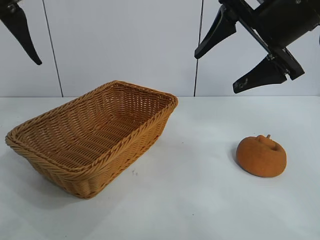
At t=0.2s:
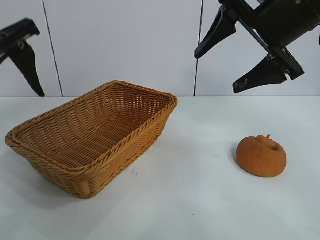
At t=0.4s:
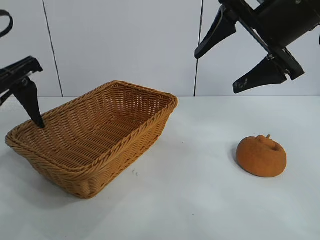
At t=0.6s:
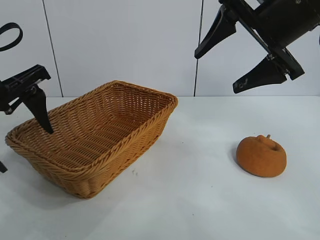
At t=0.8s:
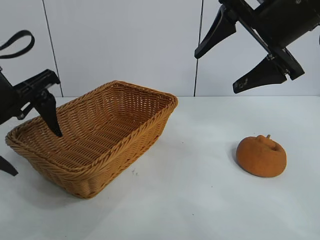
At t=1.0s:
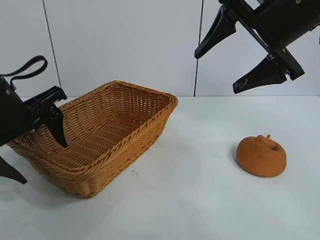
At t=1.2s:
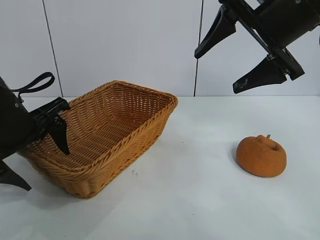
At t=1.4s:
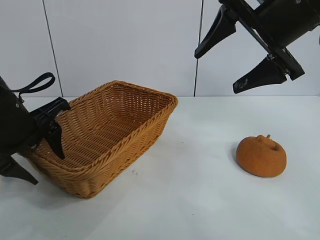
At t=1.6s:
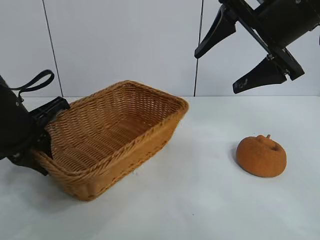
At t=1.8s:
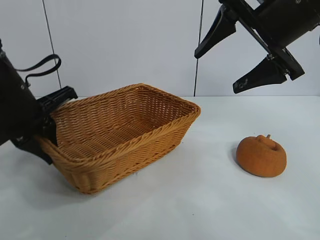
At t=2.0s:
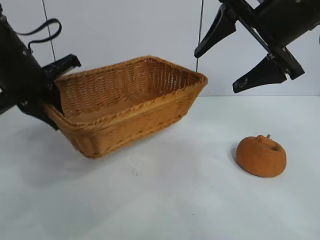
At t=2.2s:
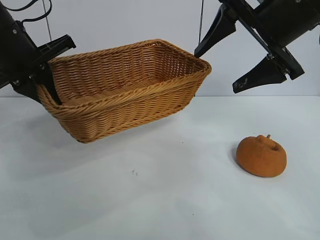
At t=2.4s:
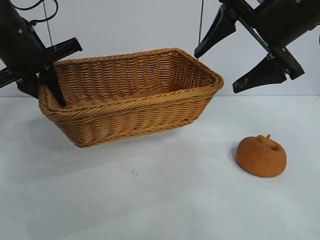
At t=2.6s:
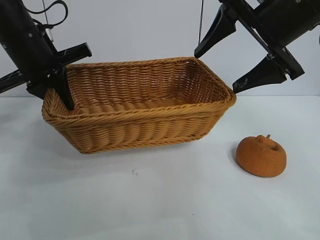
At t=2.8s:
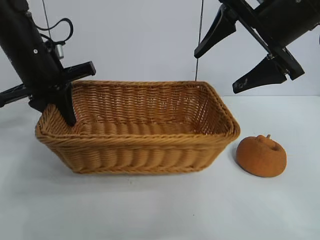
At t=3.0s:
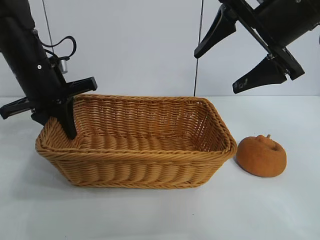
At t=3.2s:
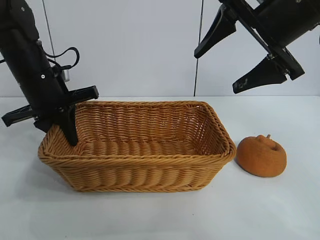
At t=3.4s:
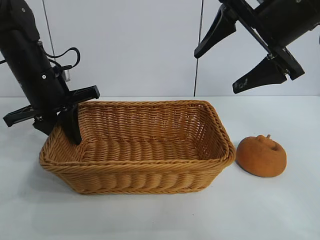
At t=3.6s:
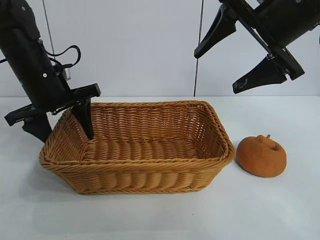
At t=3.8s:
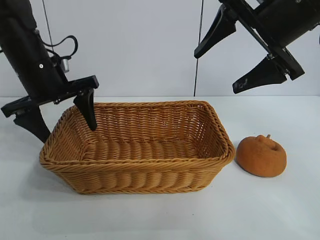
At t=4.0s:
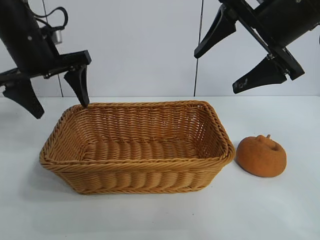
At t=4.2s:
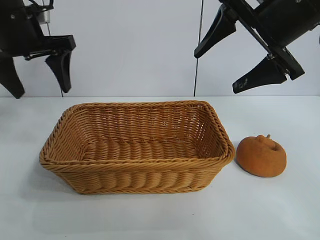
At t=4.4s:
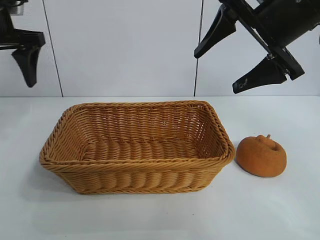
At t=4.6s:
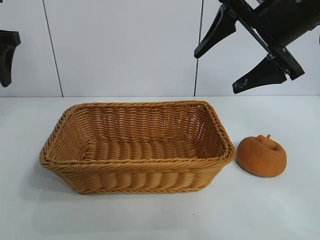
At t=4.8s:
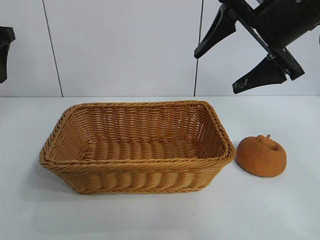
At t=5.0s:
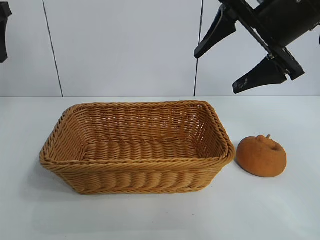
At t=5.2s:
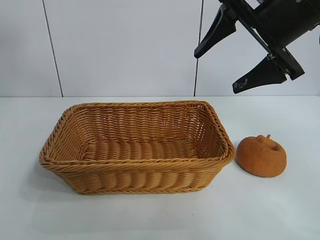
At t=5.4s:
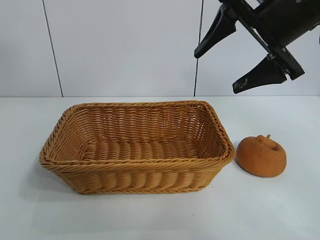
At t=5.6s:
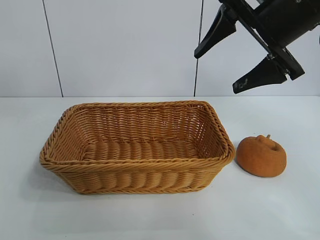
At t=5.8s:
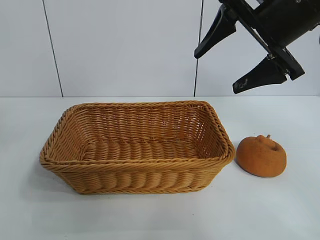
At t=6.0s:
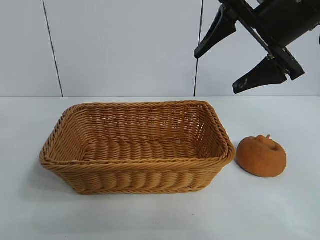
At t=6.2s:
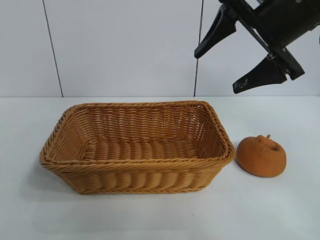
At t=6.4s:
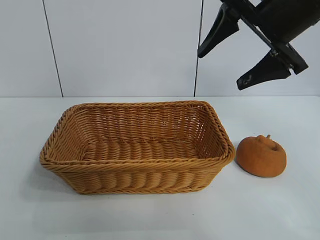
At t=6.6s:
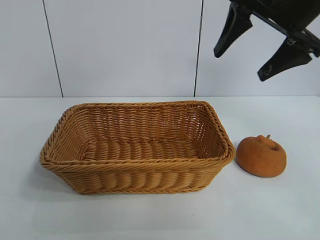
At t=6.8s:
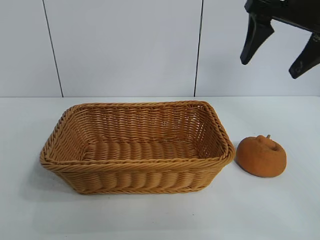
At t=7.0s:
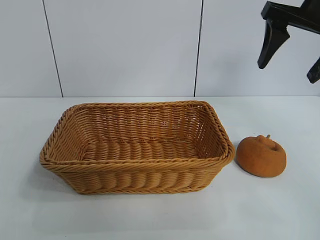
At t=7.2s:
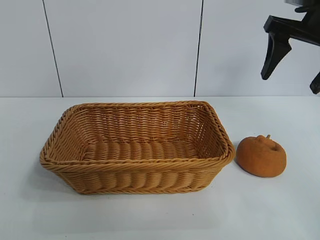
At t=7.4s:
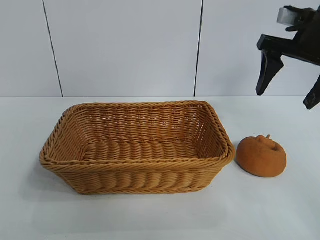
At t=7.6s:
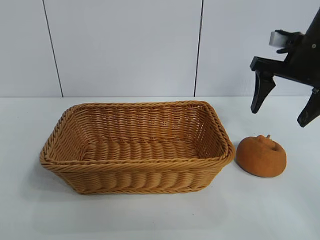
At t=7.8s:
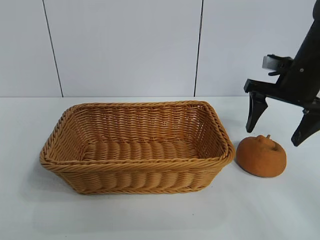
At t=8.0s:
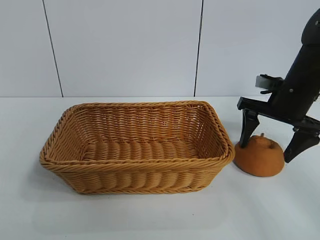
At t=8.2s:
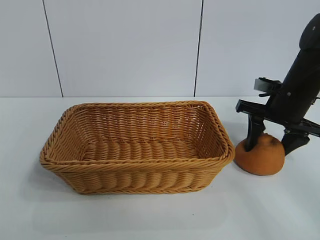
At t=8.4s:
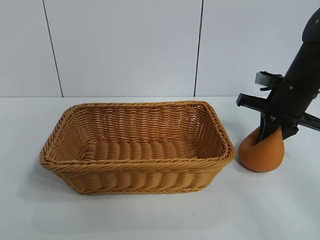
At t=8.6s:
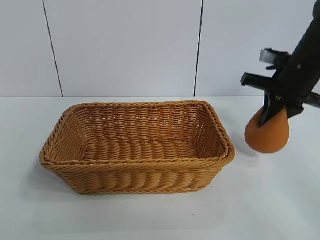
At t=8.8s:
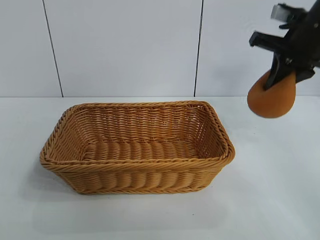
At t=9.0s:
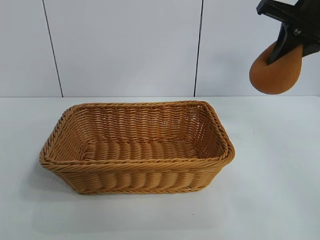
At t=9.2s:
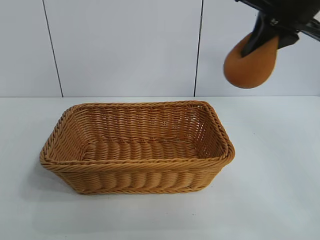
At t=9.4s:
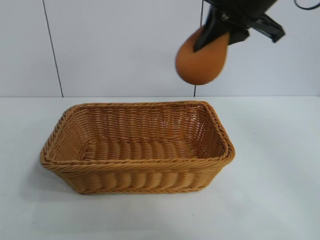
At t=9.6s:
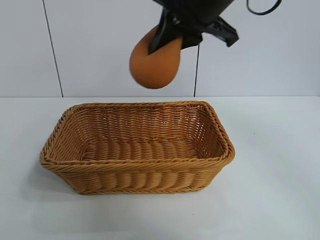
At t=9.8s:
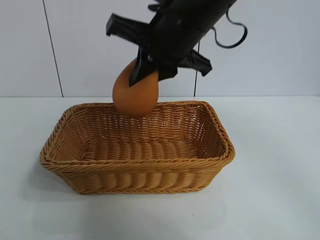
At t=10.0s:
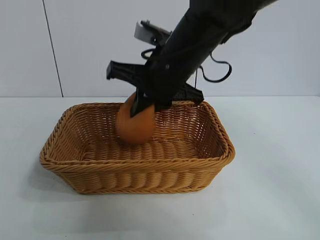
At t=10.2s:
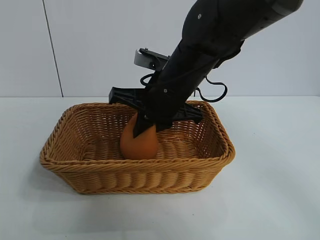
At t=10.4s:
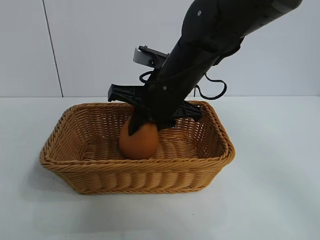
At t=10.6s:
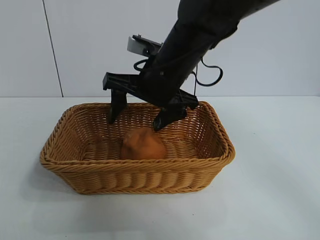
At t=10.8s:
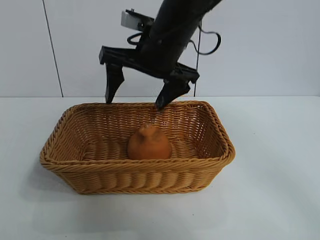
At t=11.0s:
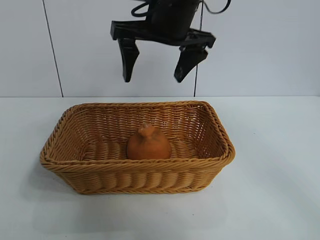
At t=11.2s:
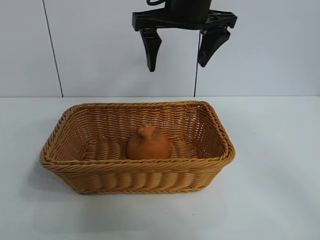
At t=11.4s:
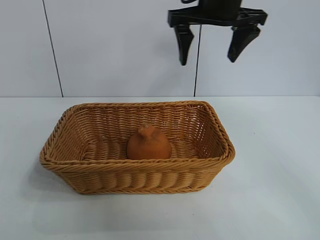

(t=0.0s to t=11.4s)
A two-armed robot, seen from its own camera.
Task of the whole recording: pick up the orange and put it into the basket.
Step, t=0.0s - t=1.6s: Grasp the basket with left gripper.
Step, t=1.8s - t=3.6s: Place the basket in the center of view with left gripper.
Step, t=3.8s - t=8.4s: Grasp the orange with right gripper.
Step, t=8.6s - t=10.6s: Place the orange in the basket with right gripper.
